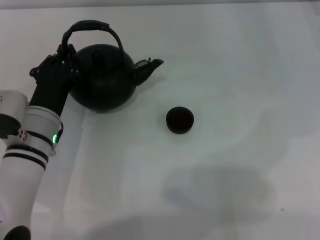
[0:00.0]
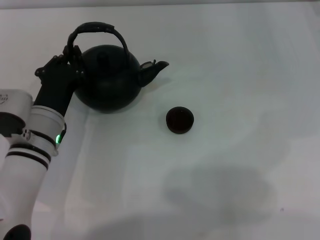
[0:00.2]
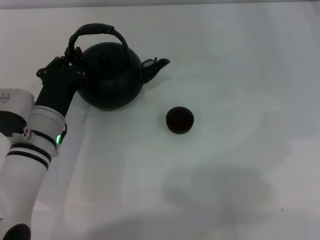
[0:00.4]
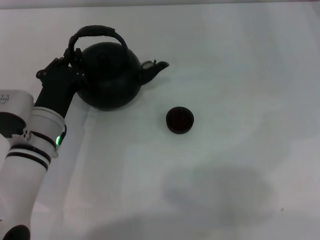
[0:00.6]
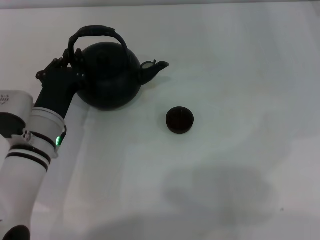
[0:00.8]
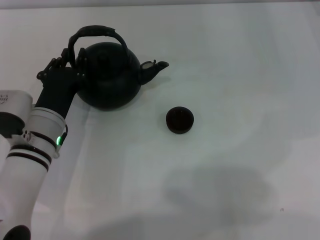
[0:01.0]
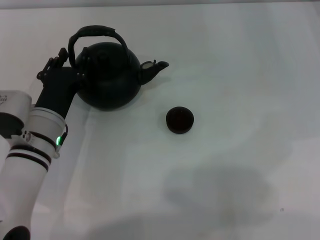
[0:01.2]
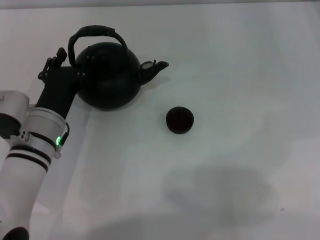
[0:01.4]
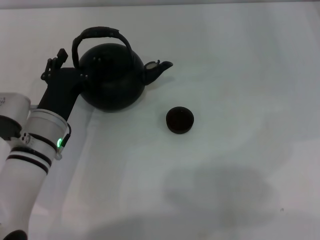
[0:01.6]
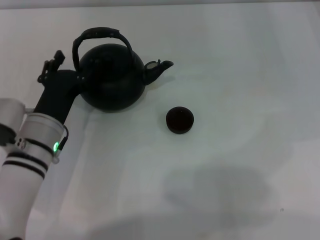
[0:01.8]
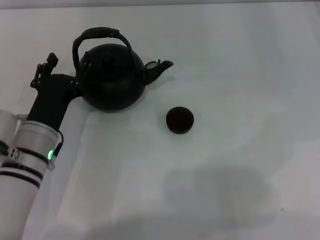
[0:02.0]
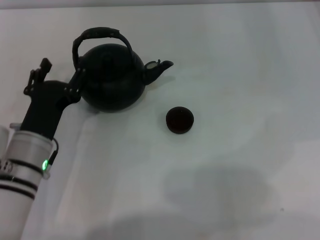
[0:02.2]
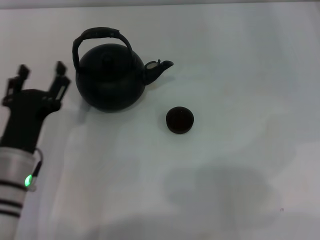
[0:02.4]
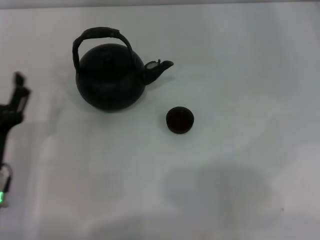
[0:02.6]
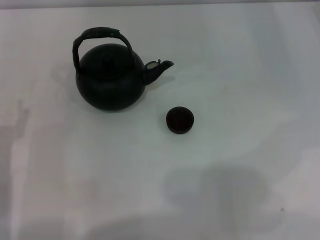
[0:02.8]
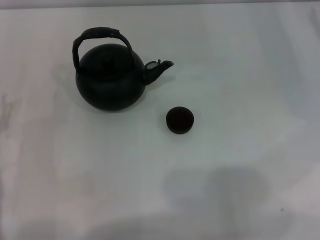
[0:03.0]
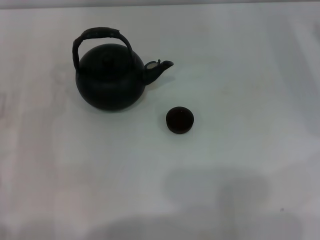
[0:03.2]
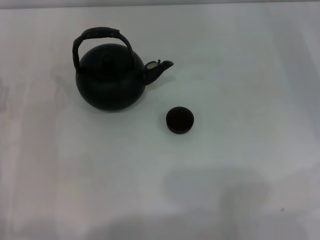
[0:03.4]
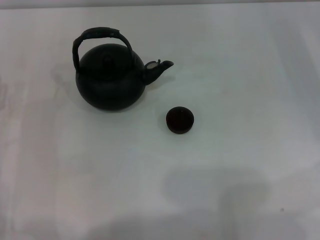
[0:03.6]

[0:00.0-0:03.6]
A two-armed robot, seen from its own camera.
Task of the whole recording: Grasp the handle of the teapot with one hand and pour tea into the teacup.
Step, 0:00.0 to 0:02.2: Put down the teapot with the left gripper.
0:00.0 to 0:01.8: The left gripper opens up.
0:01.8 to 0:03.6: The left gripper goes some 10 cm to the left.

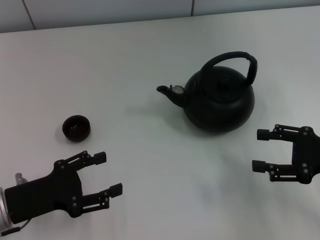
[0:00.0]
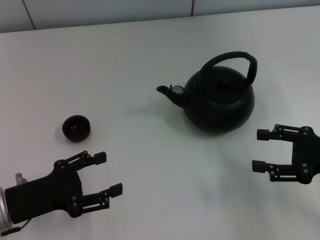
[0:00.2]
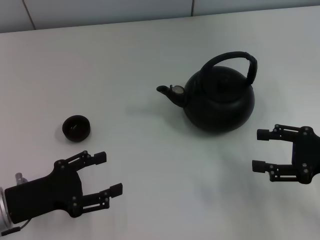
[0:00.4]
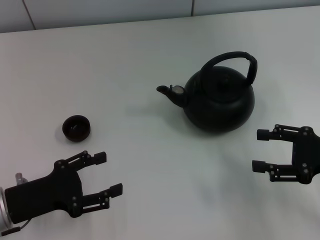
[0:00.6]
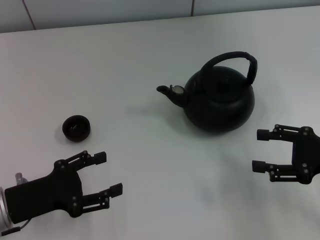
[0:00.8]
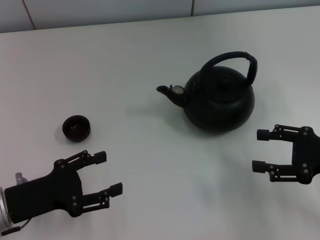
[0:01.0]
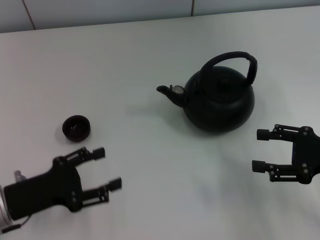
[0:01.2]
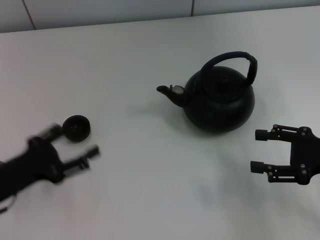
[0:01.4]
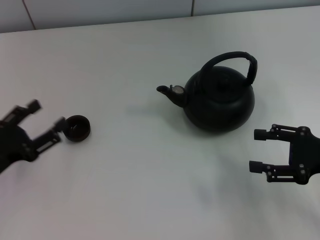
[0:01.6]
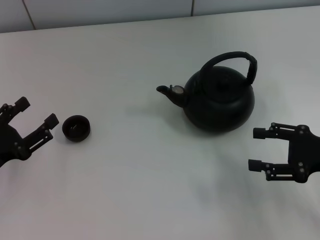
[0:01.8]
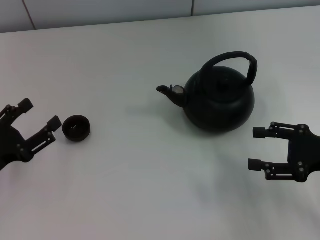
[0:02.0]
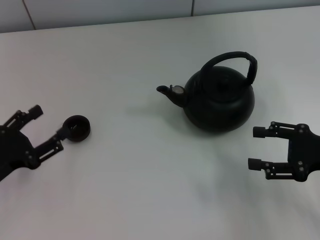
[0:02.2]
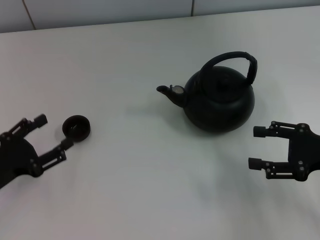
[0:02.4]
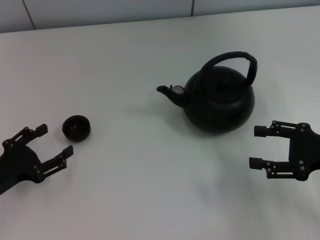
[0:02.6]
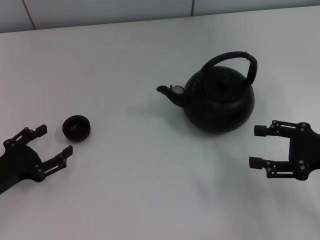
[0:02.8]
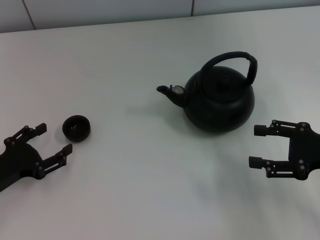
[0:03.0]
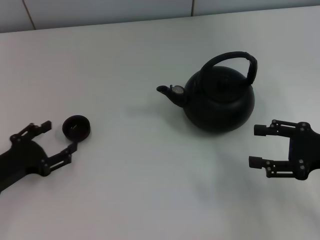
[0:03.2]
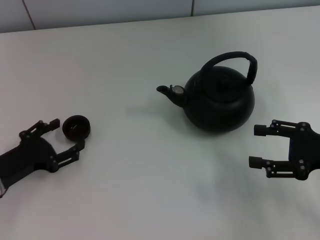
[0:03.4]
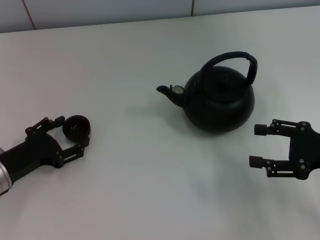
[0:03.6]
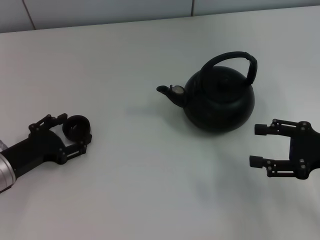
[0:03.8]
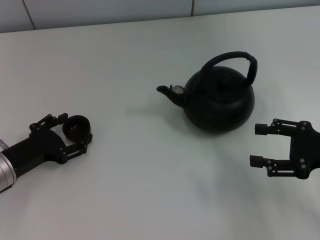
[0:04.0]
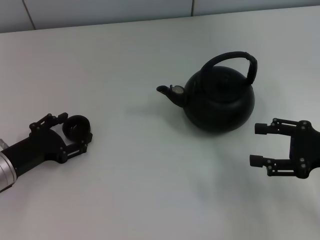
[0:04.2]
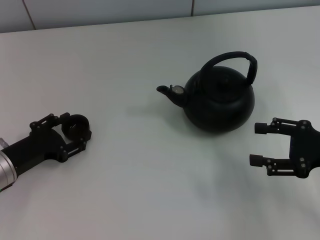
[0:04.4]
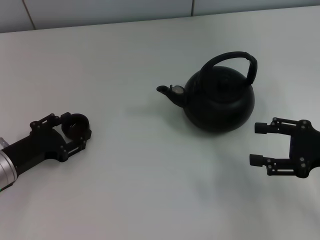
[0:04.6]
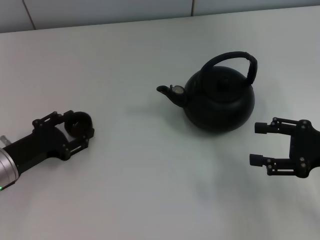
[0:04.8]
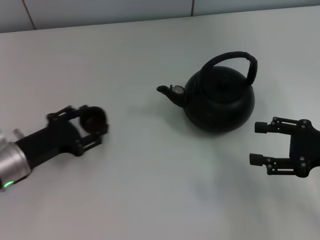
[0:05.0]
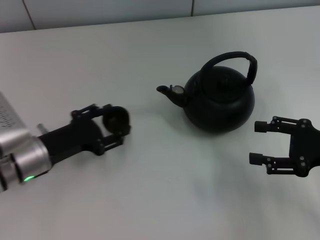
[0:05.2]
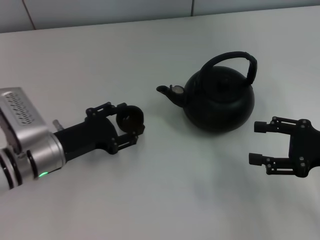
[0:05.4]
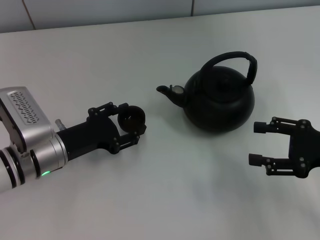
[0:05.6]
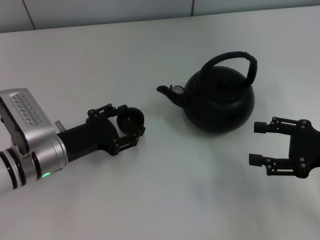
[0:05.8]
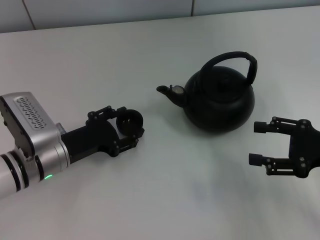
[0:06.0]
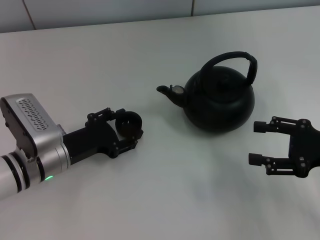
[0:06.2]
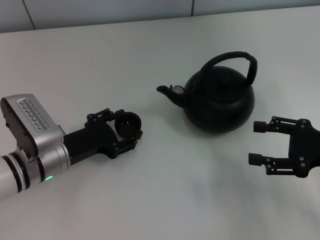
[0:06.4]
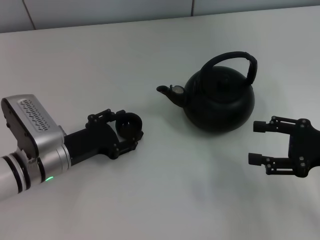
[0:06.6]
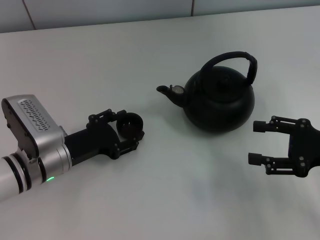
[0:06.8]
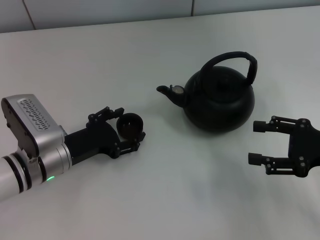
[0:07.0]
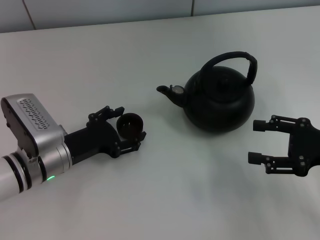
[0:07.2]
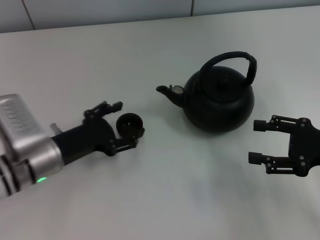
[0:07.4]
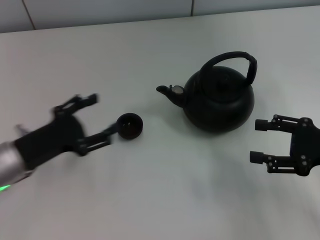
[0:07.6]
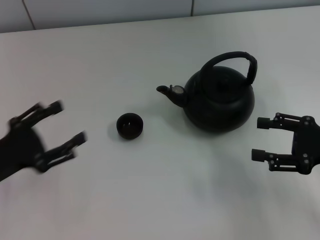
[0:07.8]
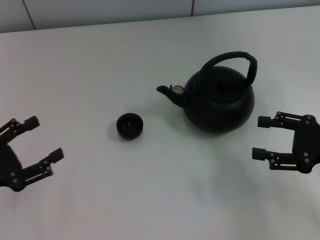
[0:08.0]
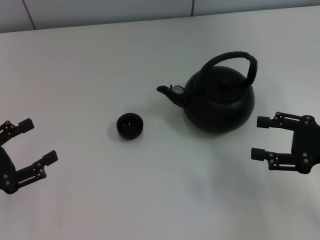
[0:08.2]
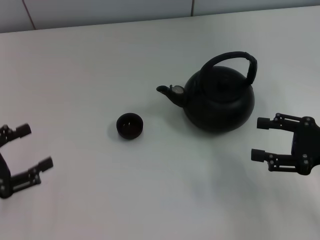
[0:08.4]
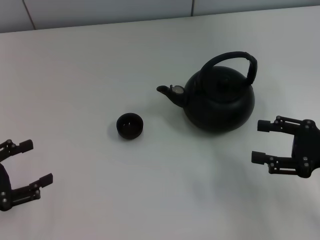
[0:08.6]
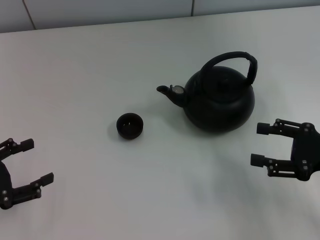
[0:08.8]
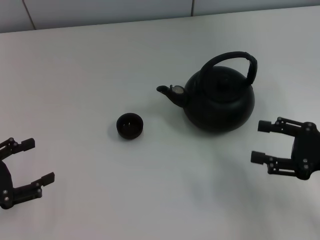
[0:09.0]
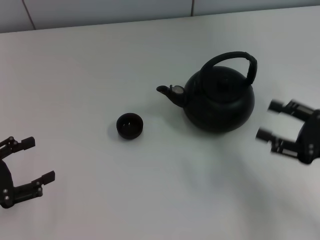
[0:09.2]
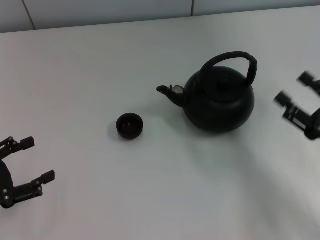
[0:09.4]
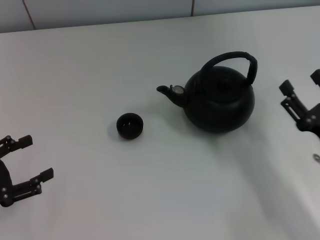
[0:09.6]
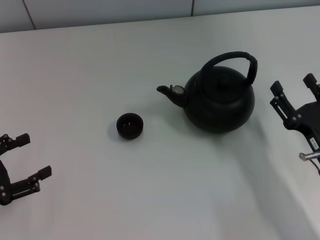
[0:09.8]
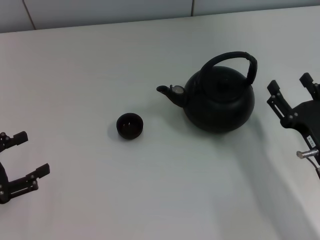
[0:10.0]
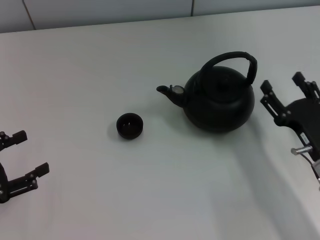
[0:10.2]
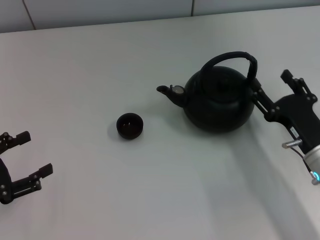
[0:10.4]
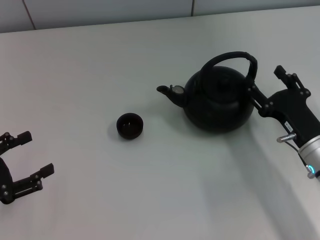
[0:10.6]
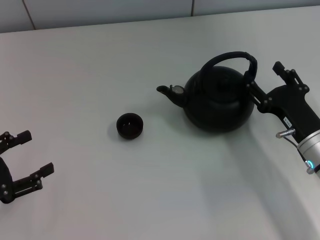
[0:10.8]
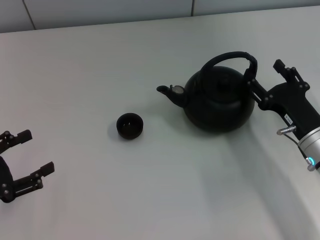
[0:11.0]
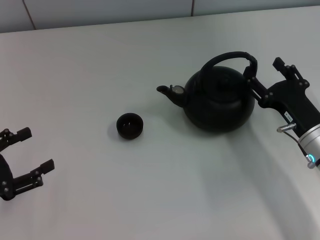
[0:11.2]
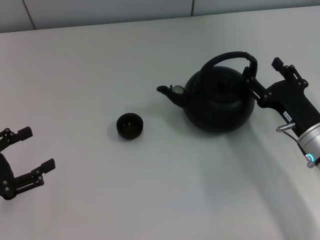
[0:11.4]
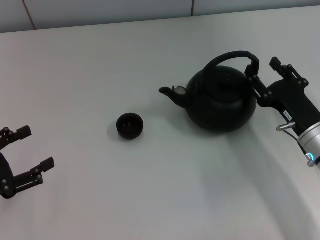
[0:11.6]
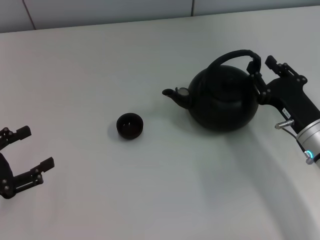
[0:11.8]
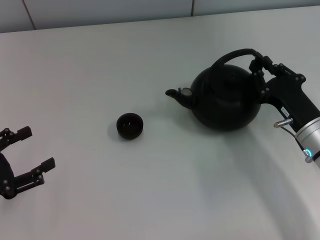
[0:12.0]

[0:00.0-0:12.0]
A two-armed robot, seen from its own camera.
Task of the whole recording: Grasp the handle of the teapot with one hand and pour tea into the teacup.
Step, 0:00.0 to 0:04.8: Pick up the teacup with the left gripper.
Step, 0:05.0 to 0:07.4: Place the teacup in the center of view with the left gripper.
0:01.6 to 0:03.0: The grippers make only small movements.
0:03.0 to 0:04.4: The left gripper changes place by some 5 cm.
0:04.4 to 0:06.0: The left gripper is displaced to the right by about 10 cm.
0:06.0 to 0:07.6: The left gripper ends up about 5 cm from where it was, and opens.
0:07.6 to 0:09.0: The left gripper travels to the left and backward by some 10 cm.
0:09.0 to 0:10.4: The right gripper moves to the left and downward, about 10 cm.
0:10.4 to 0:12.0: The right gripper closes its fingers.

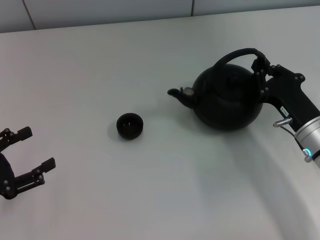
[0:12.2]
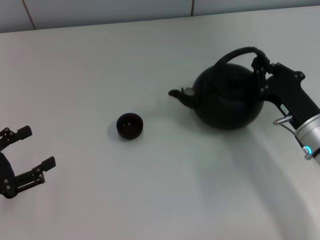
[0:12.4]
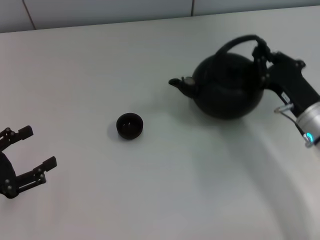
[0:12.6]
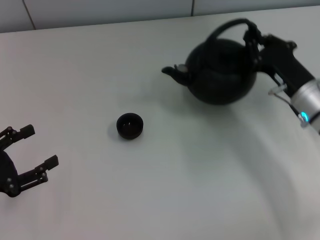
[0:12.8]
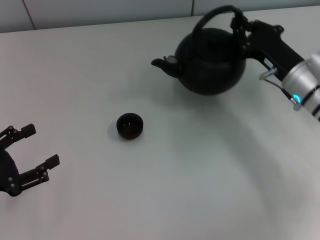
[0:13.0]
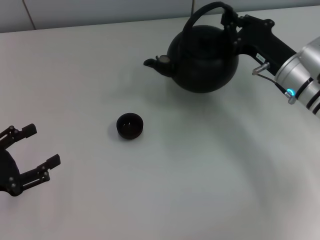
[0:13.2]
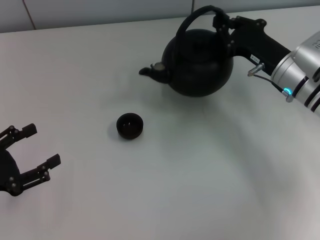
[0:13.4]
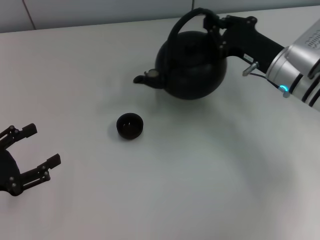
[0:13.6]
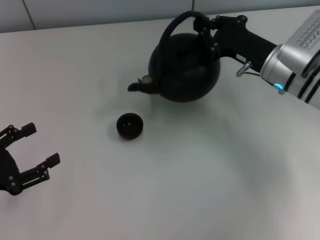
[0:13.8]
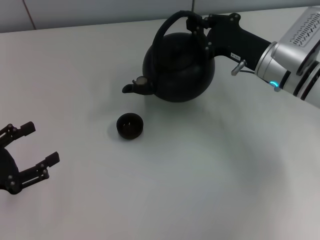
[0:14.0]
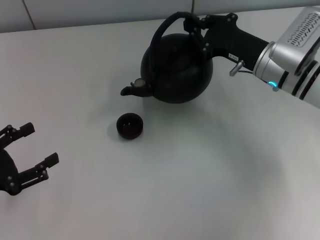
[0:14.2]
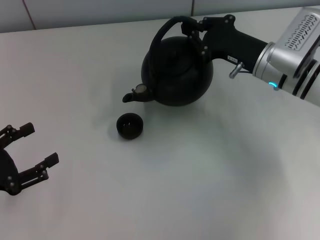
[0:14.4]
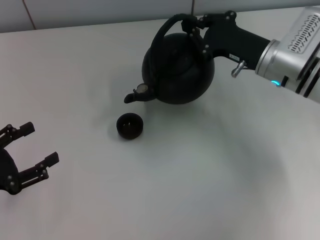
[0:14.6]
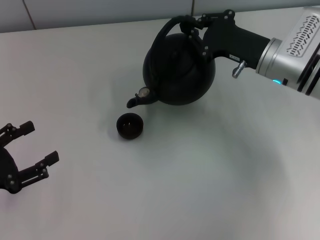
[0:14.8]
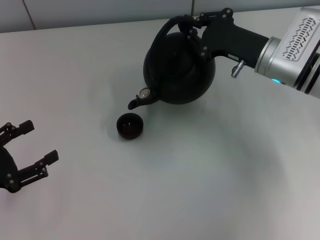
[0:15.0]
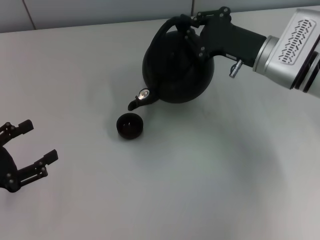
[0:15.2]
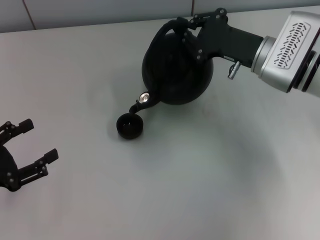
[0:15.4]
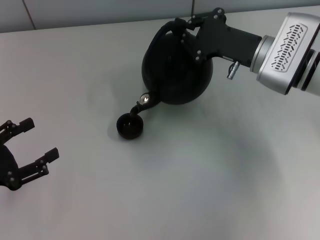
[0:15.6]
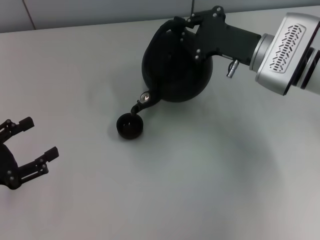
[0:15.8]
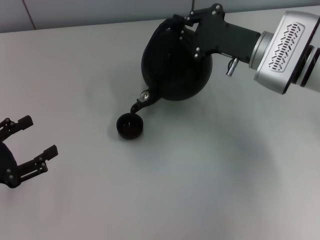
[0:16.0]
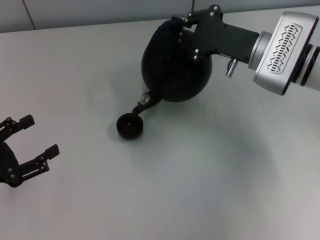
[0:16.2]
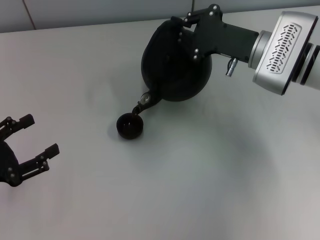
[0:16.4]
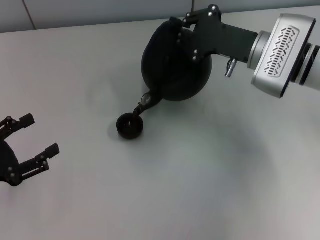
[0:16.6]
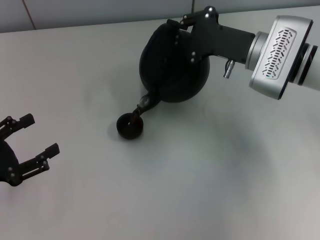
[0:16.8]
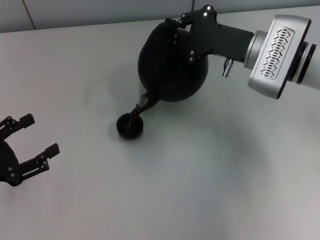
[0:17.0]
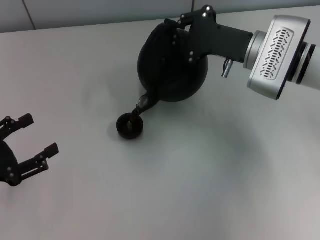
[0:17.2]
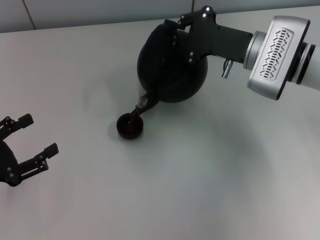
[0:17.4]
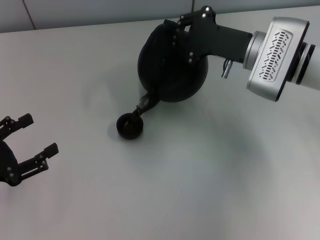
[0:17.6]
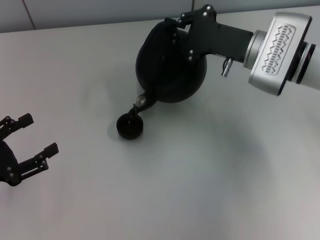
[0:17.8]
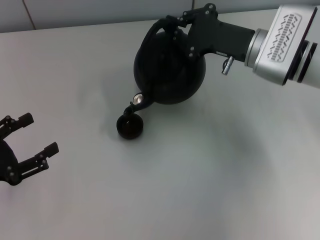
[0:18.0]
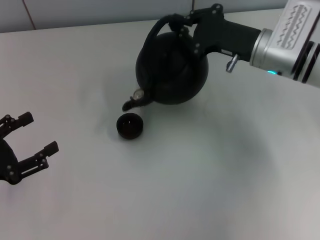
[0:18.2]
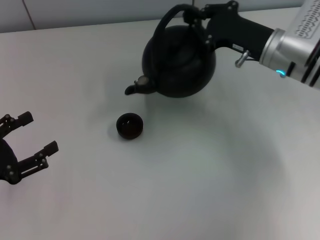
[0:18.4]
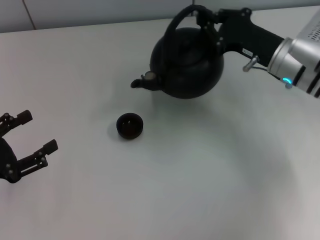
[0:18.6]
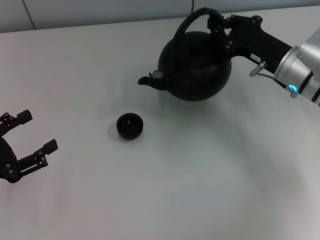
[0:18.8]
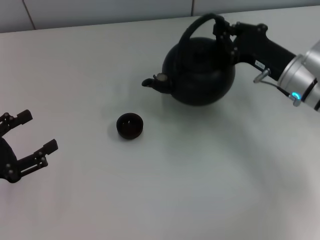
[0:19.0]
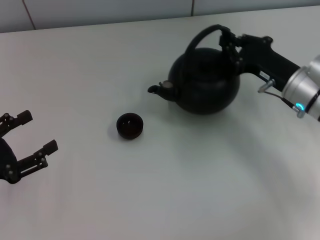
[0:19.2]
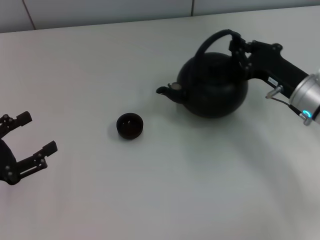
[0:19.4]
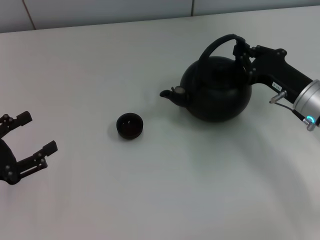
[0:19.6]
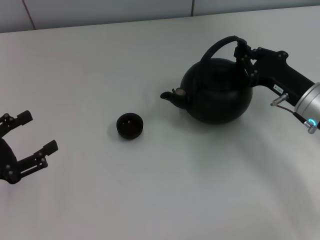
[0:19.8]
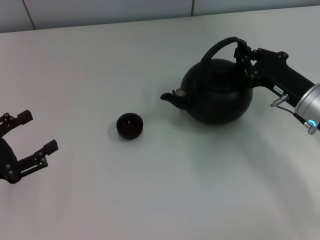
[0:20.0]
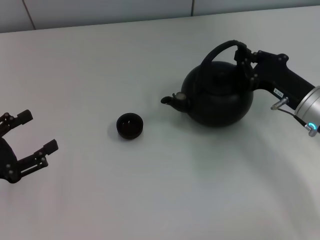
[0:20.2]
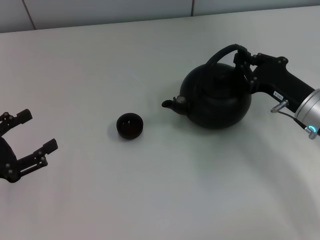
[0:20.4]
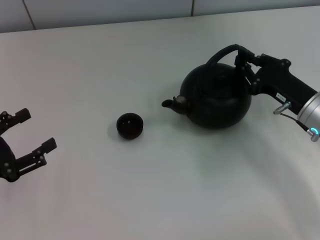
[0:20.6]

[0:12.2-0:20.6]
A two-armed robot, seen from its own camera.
Task of the whole recording: Grasp the handle of the teapot with one hand and pour tea into the teacup.
0:12.2 to 0:13.6: The right gripper heads forward and upward, covering some 10 cm.
0:15.0 to 0:17.8: The grippers move only a little.
0:17.8 to 0:19.2: The right gripper goes approximately 10 cm to the right and downward.
0:19.2 to 0:20.6: The grippers make only small movements.
